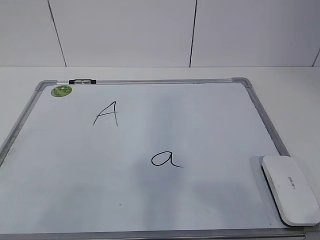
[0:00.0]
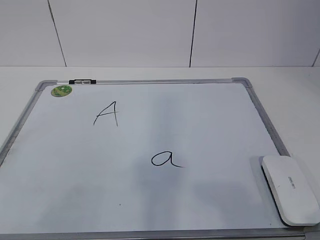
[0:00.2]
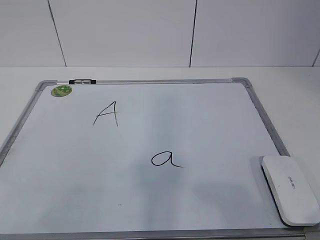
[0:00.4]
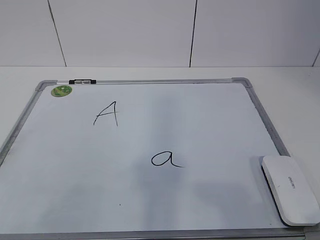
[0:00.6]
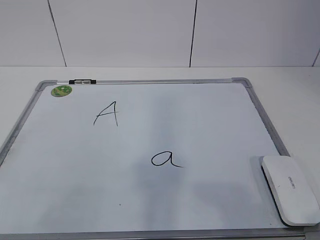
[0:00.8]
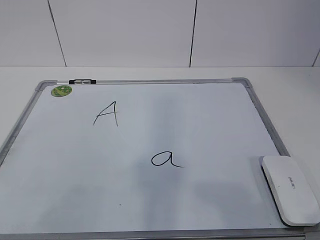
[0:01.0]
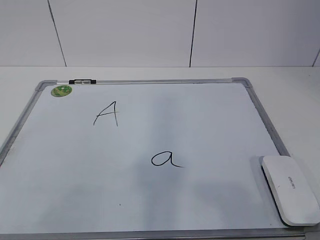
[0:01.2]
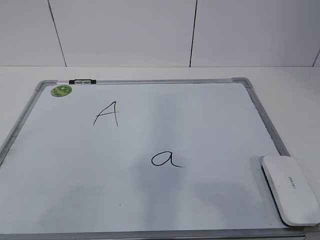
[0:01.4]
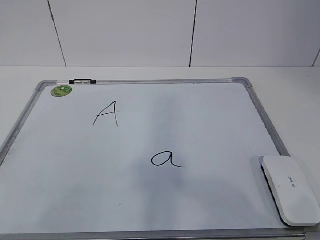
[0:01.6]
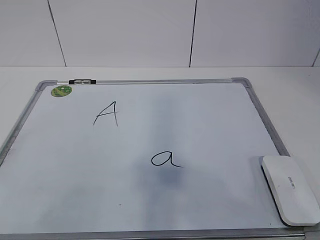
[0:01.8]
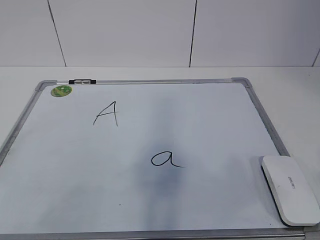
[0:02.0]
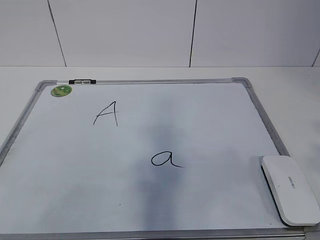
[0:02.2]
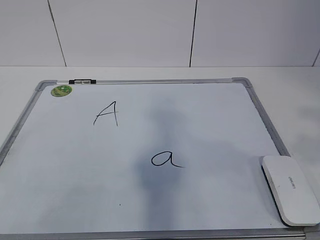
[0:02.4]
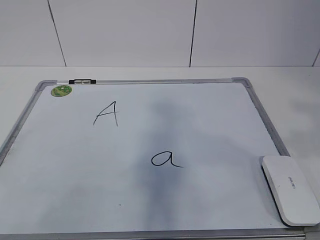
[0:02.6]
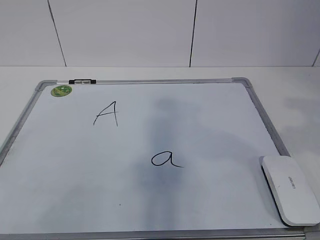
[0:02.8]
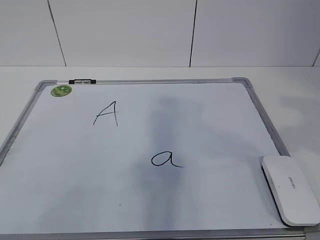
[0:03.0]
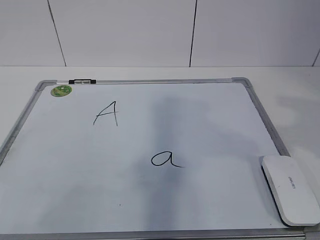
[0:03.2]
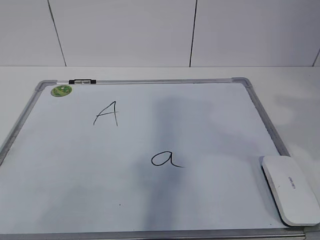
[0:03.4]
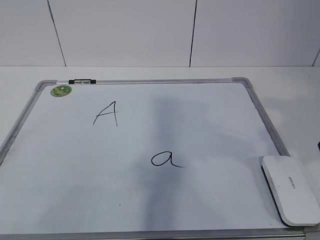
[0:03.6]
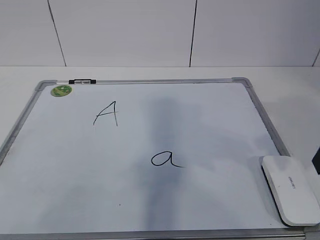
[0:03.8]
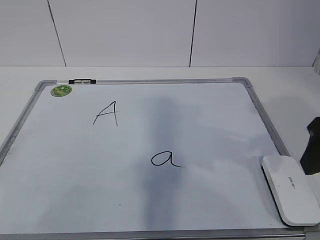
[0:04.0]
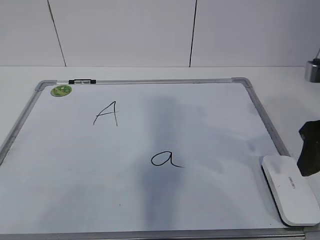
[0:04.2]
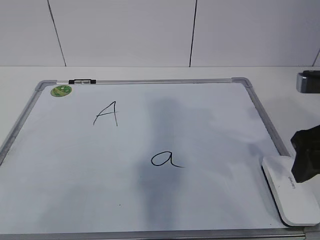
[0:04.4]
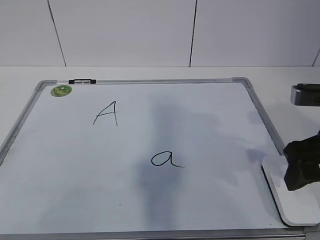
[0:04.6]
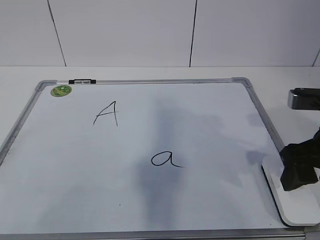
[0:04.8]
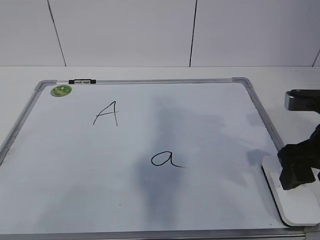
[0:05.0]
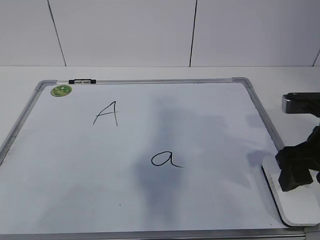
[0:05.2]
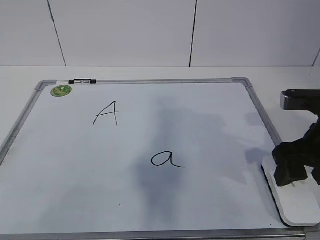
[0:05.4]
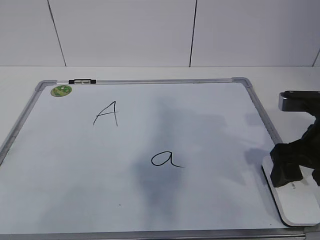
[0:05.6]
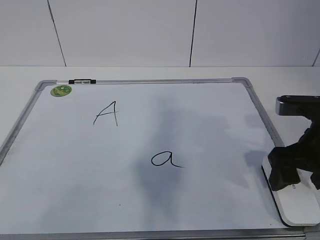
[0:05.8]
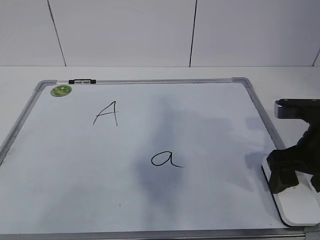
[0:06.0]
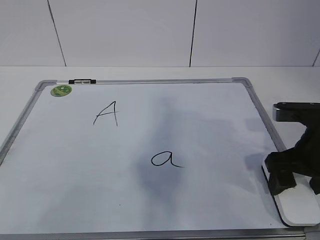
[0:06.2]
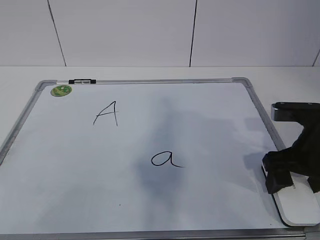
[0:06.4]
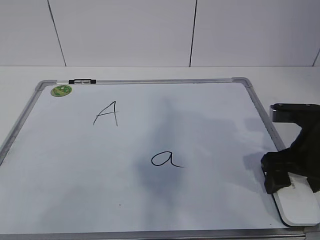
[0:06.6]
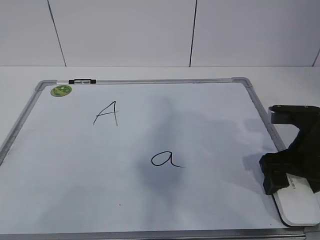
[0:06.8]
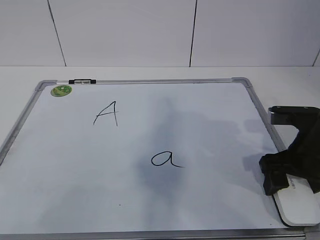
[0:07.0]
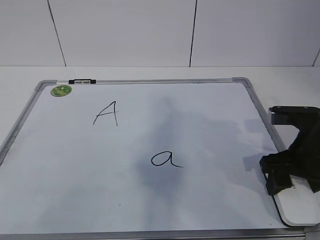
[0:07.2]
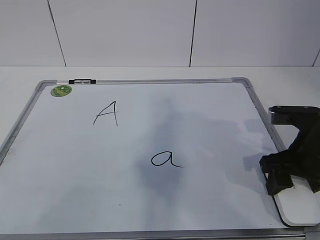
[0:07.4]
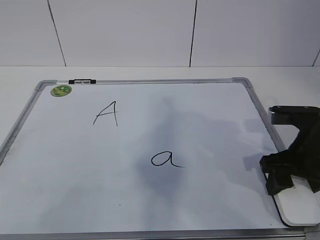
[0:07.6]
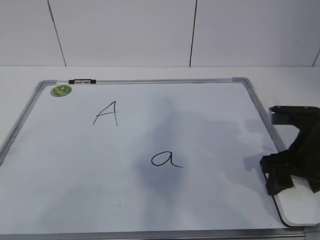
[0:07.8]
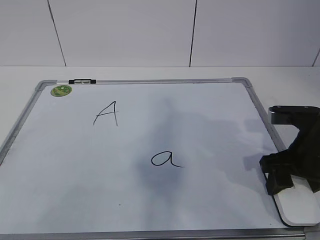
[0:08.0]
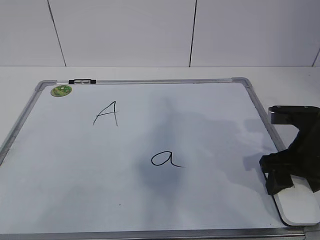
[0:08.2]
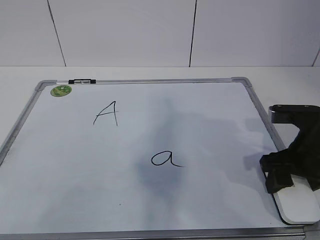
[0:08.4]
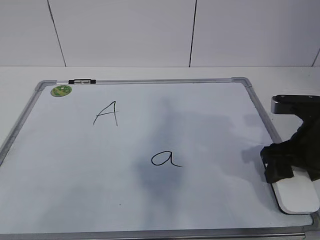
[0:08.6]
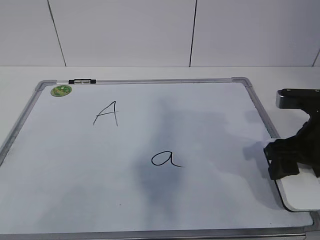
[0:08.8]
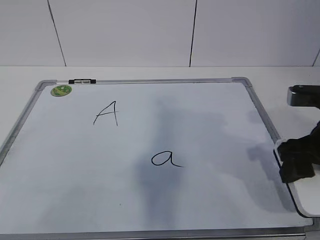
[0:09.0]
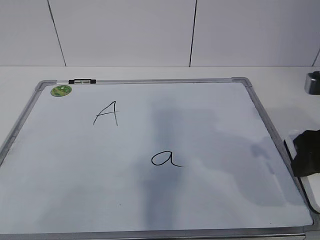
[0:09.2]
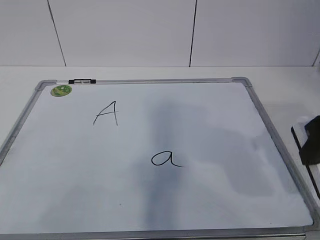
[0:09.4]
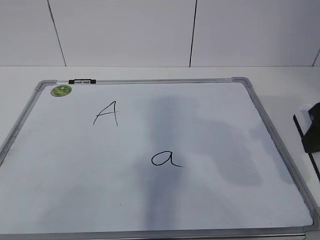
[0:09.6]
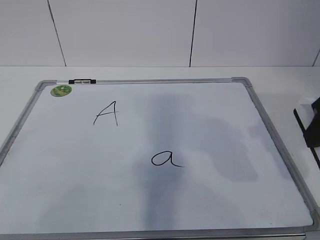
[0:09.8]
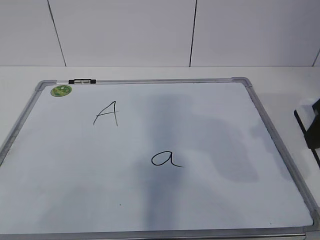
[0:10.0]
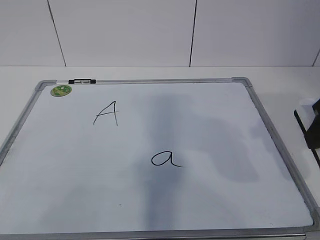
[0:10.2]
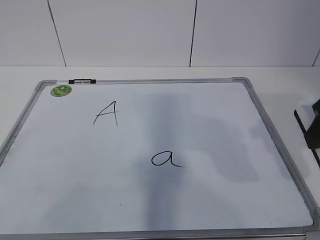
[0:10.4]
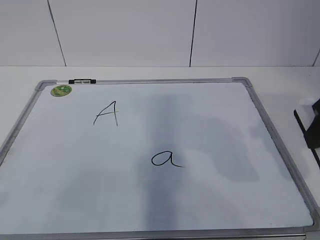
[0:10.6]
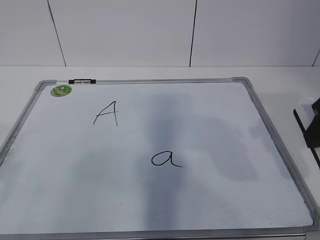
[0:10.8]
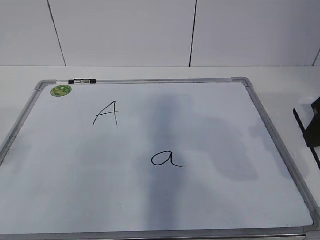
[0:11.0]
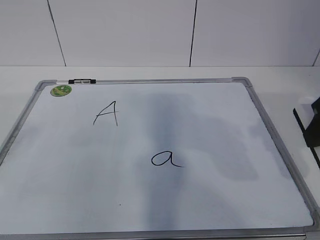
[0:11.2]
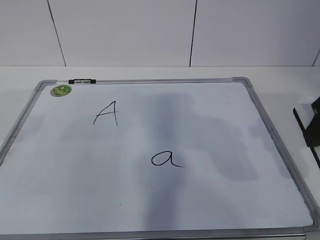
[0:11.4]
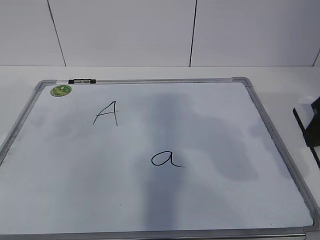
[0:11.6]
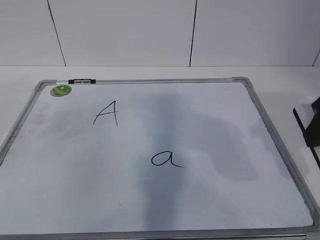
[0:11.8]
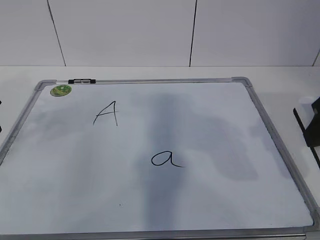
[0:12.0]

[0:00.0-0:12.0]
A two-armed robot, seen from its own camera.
Task of the whole recording: pick up the eraser on the blackboard and erase the letter "a".
Step, 0:00.0 to 0:06.8: Grab the eraser with your right hand.
Step, 0:07.0 to 0:11.6: Hold the drawing board steady with your left hand.
0:03.0 to 0:04.4: The right gripper shifts approximately 10 cm downward and forward.
0:04.4 to 0:06.0: The right gripper goes approximately 5 cm downward, and opens its fingers.
0:06.0 to 0:07.6: The right gripper closes.
0:07.6 to 0:09.0: The grippers stay close to where they were, moving slightly.
0:09.0 to 0:10.4: The right gripper is displaced upward by roughly 10 cm.
0:10.4 to 0:12.0: The left gripper shifts some 35 cm forward.

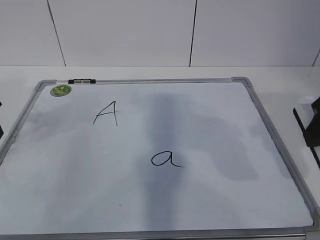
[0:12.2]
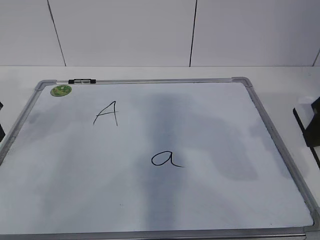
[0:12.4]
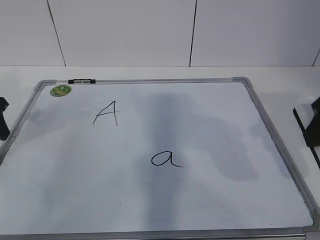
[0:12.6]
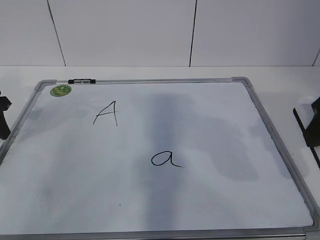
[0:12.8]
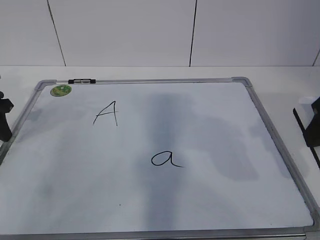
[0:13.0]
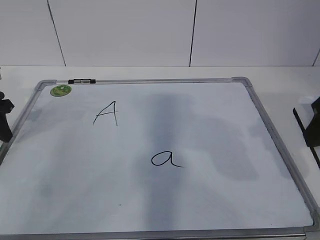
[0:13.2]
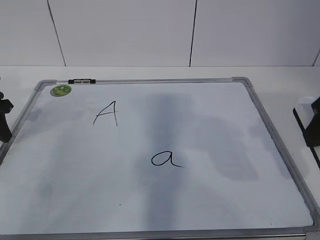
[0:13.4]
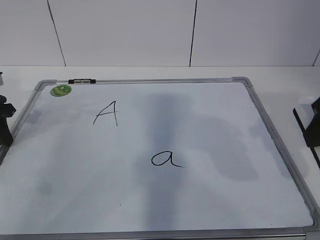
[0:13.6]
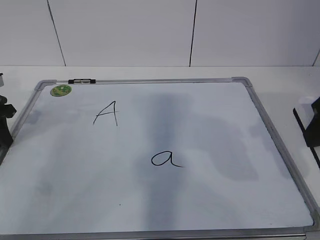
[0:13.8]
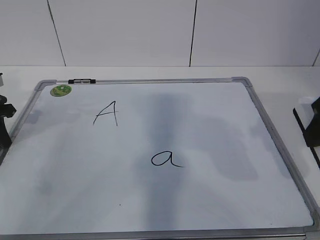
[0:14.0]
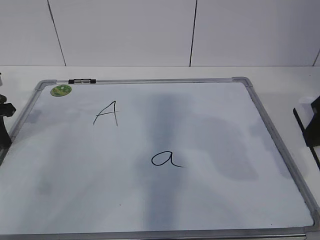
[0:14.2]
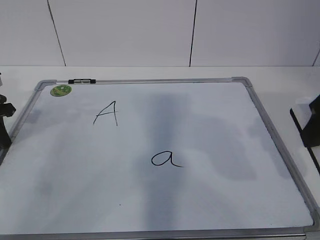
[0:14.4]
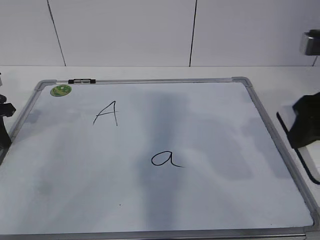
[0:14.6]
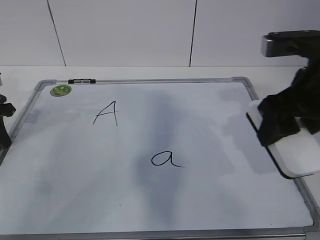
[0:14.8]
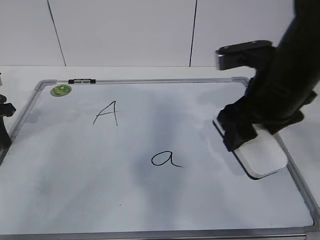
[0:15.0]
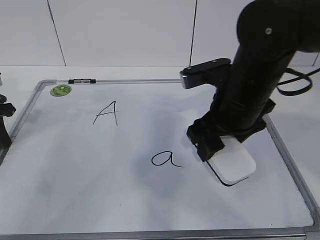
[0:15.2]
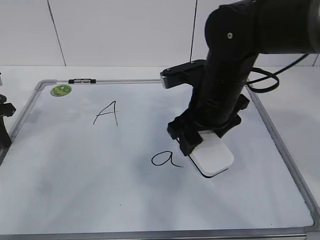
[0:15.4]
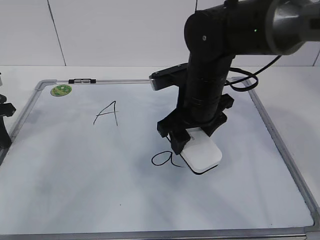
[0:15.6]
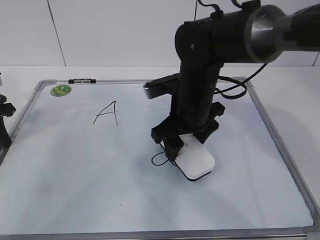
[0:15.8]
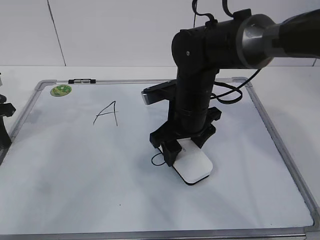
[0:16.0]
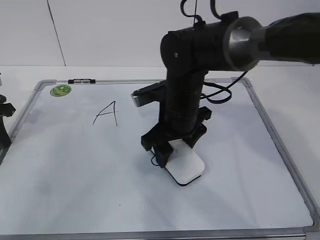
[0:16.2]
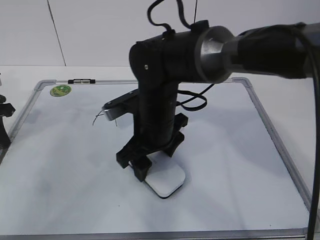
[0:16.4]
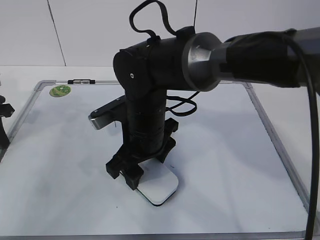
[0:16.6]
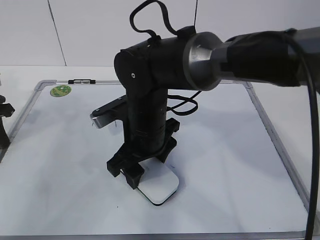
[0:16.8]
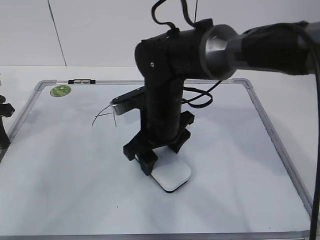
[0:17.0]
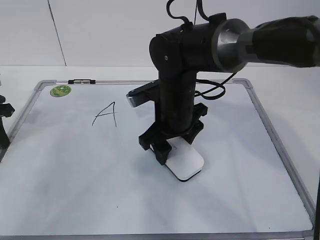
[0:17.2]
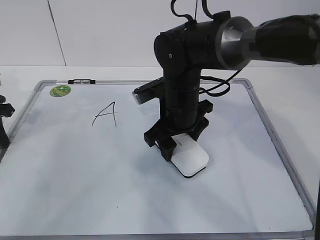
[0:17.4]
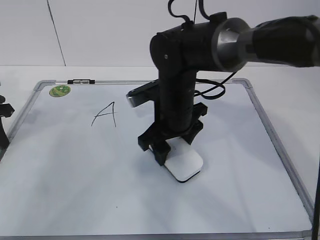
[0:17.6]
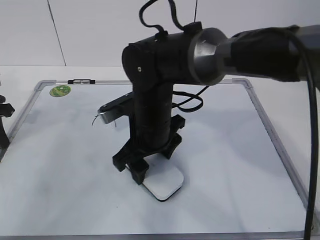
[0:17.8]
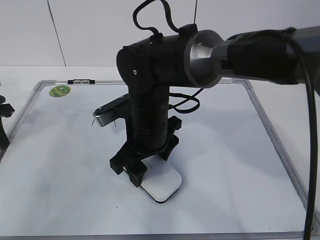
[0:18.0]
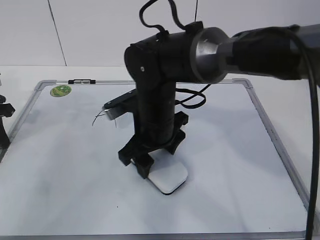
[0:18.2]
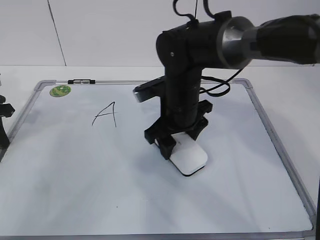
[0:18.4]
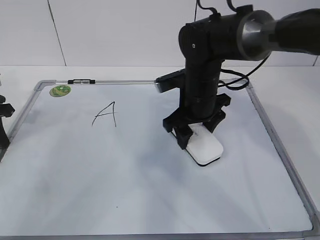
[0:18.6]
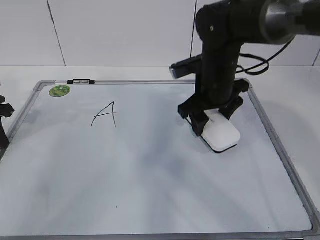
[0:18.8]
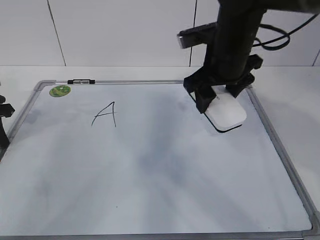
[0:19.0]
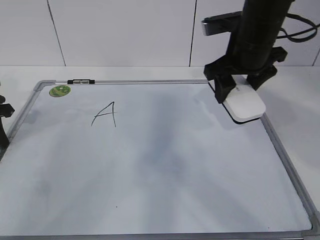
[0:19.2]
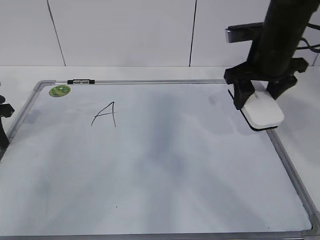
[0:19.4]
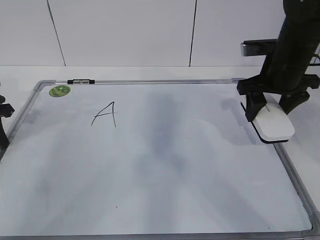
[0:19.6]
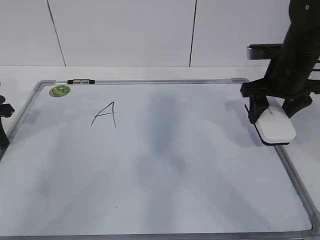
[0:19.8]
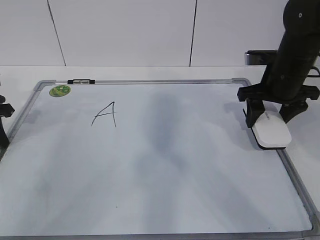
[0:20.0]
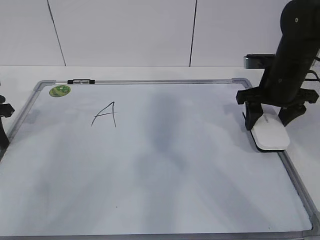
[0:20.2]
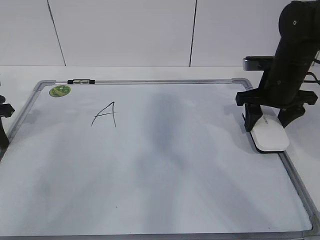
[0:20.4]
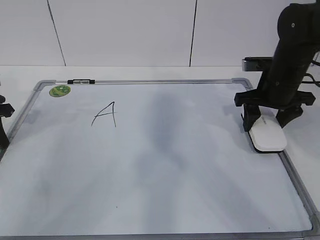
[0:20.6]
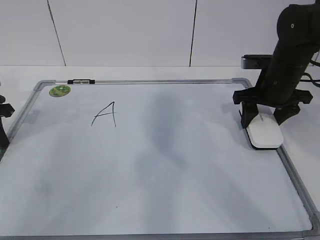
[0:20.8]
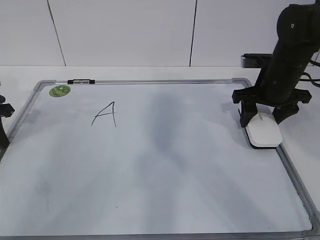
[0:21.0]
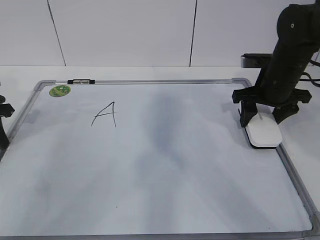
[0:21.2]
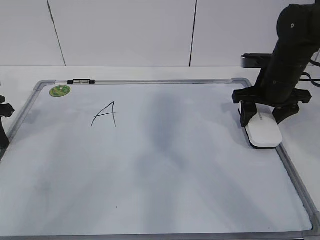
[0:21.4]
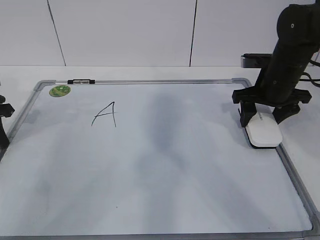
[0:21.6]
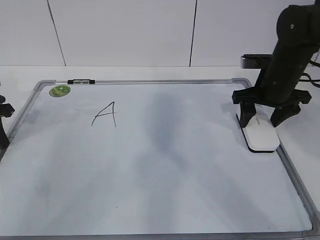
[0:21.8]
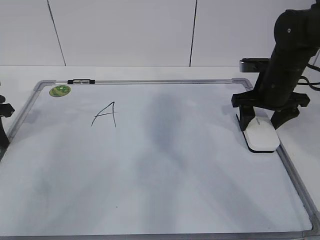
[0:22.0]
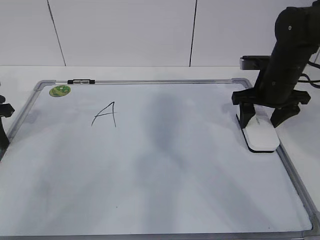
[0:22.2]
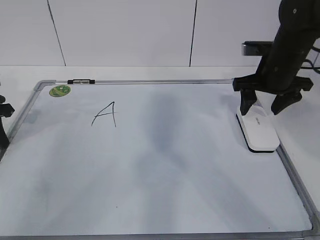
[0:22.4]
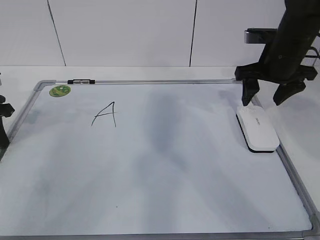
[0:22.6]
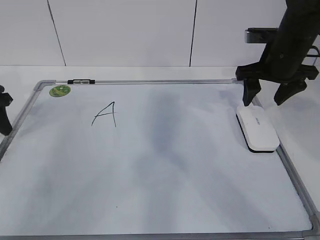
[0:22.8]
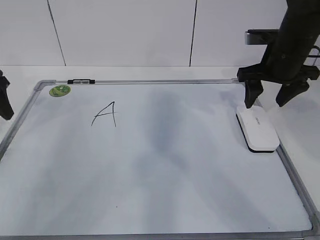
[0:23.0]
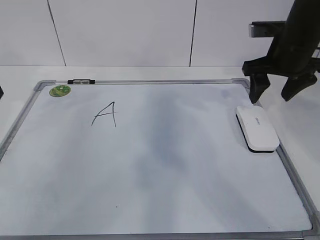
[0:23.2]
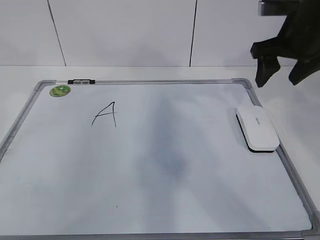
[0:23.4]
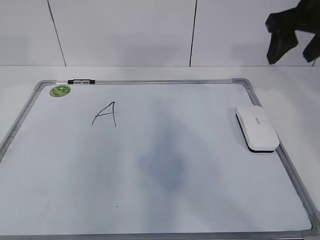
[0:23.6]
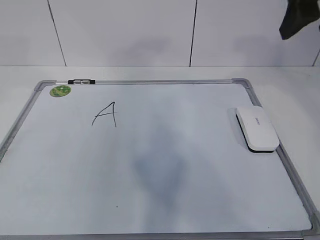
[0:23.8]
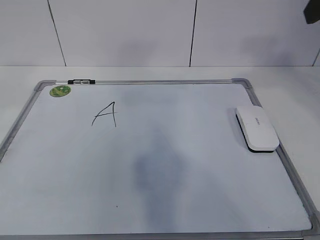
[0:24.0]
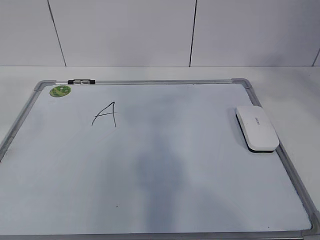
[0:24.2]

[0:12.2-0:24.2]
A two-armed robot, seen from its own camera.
Task of the whole recording: pick up the eraser on the blackboard and erase the letter "a".
Step, 0:12.2 to 0:15.4: Erase the letter a with your right hand.
Step, 0:15.6 to 0:18.0: Put down the eraser with your right hand.
0:12.2 to 0:13.8: The left gripper moves downward, roughly 5 cm, and closes its fingers.
0:13.8 to 0:15.2: The right gripper heads to the left, forward and downward, covering some 15 cm.
0:15.2 to 0:16.6: The right gripper goes approximately 15 cm to the left and downward.
0:18.2 to 0:19.8: The right gripper shifts roughly 25 cm to the right.
0:19.8 to 0:21.2: The grippers move only a little.
0:21.2 to 0:22.6: The right gripper opens its fingers.
0:22.6 to 0:24.2: The left gripper heads upward and backward, covering roughly 35 cm, and opens up. The right gripper shifts about 25 cm backward and upward.
